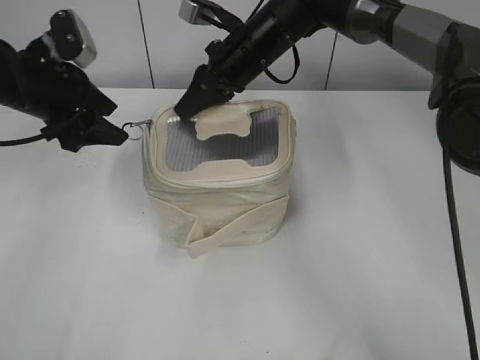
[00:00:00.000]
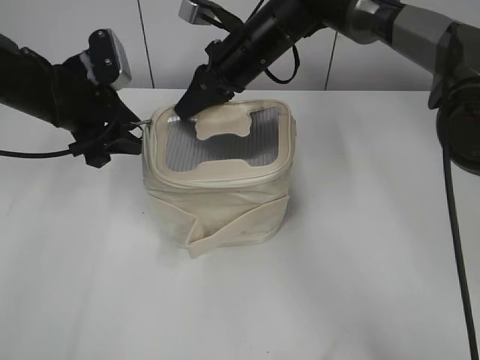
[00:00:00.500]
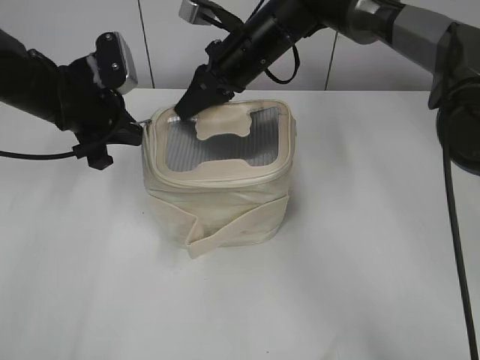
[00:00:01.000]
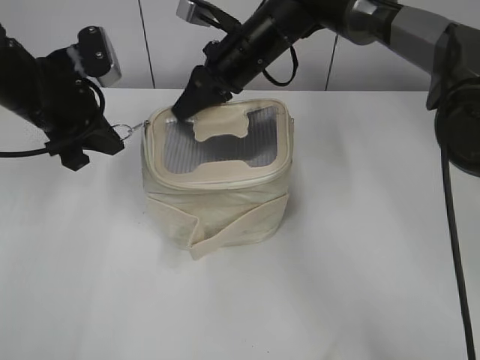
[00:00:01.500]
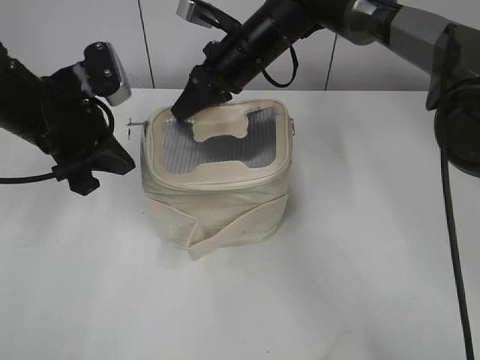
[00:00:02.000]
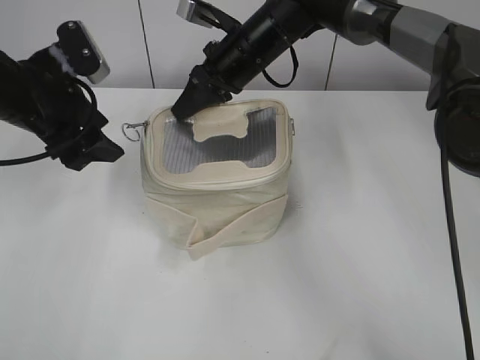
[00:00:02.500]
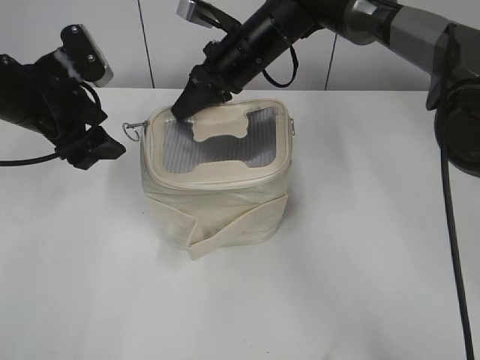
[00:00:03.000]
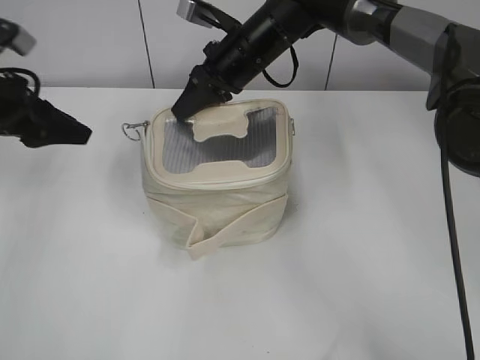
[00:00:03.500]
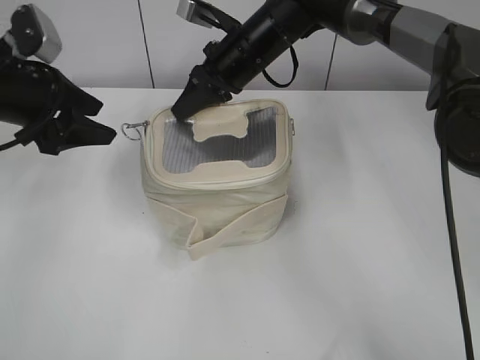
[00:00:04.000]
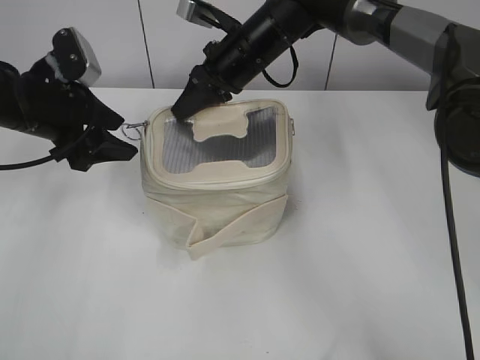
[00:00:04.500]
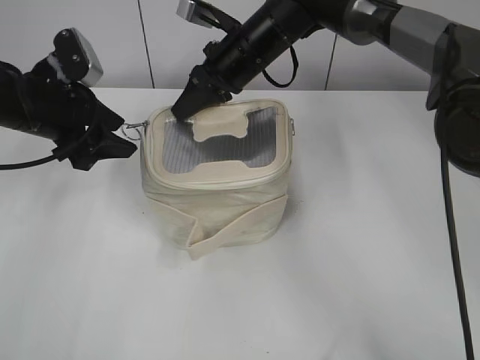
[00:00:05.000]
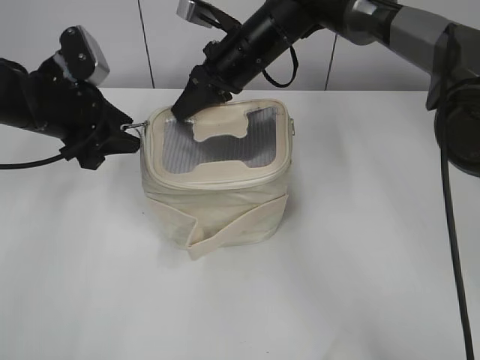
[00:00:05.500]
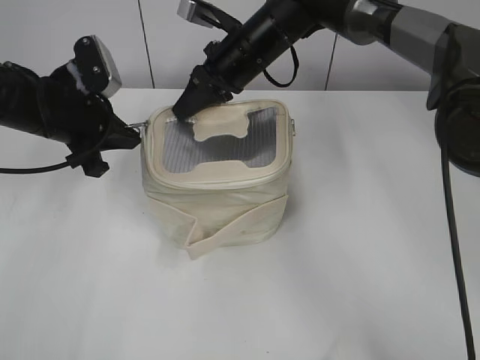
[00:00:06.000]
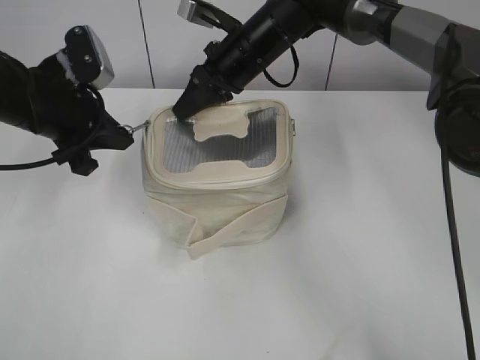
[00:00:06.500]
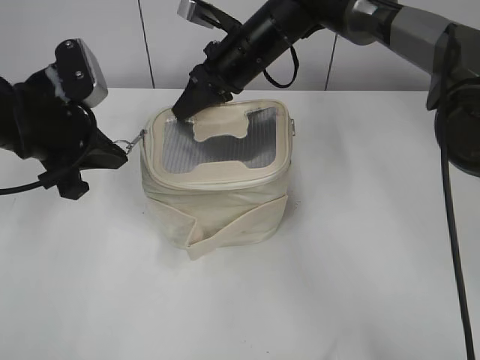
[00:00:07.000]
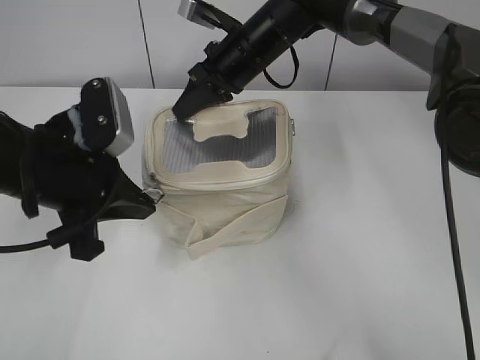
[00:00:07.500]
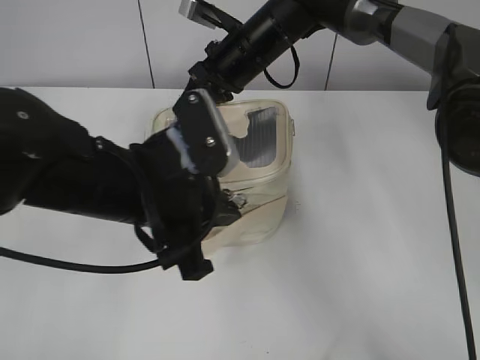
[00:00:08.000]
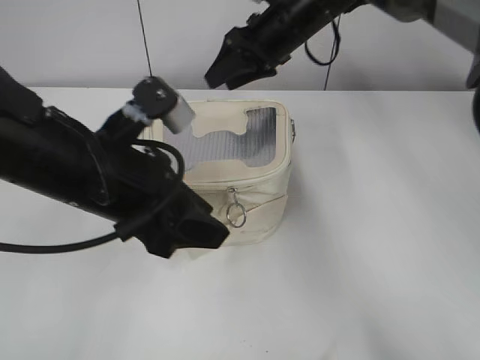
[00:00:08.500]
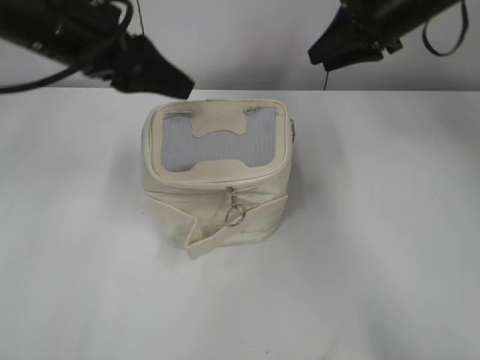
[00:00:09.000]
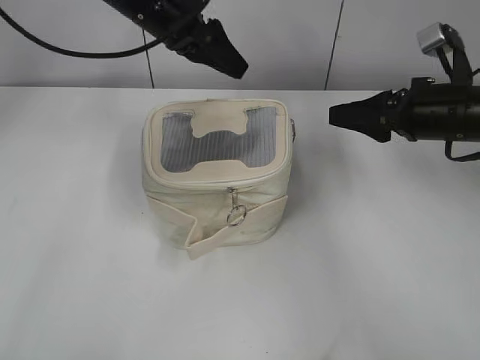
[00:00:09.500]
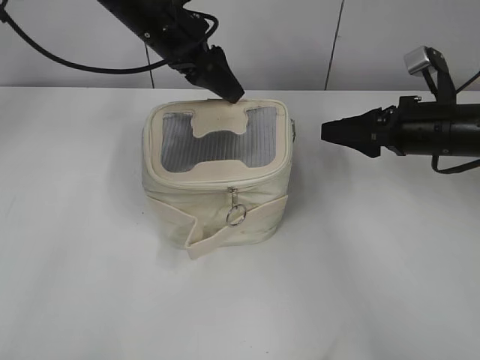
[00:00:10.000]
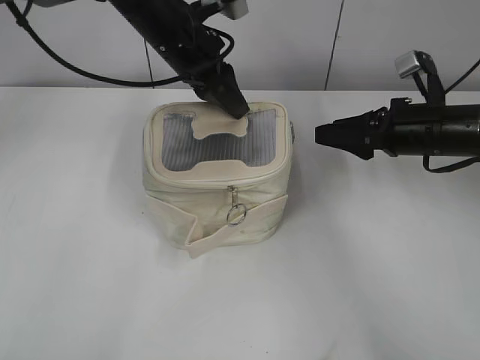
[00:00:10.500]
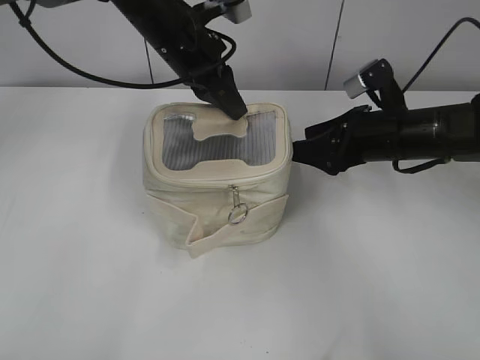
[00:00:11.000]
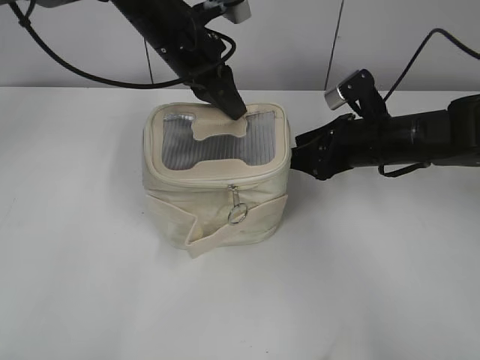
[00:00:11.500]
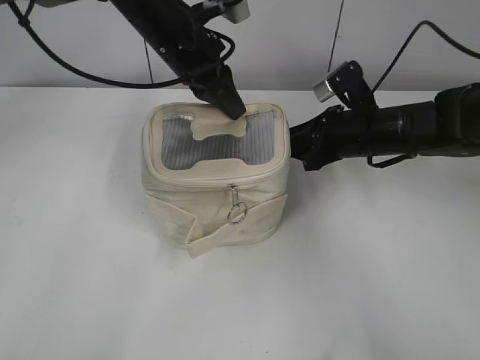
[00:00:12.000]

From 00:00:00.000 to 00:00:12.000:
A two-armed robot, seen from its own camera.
Step, from 00:00:00.000 to 00:00:08.000: Zip up the bag with your left hand.
From 00:00:00.000 to 00:00:02.000: The left gripper moves backward, roughly 5 cm, and closes.
From 00:00:02.000 to 00:00:04.000: The left gripper is displaced to the left by about 5 cm, and opens.
From 00:00:04.000 to 00:00:06.000: The left gripper shifts by about 5 cm, and closes.
From 00:00:06.000 to 00:00:08.000: The left gripper goes some 20 cm backward and to the right.
From 00:00:08.000 to 00:00:10.000: The left gripper moves forward, some 25 cm, and opens its fingers. Meanwhile the right gripper heads to the right and backward, covering some 25 cm, and opens up.
From 00:00:10.000 to 00:00:12.000: The left gripper closes, while the right gripper goes some 5 cm to the left, and closes up.

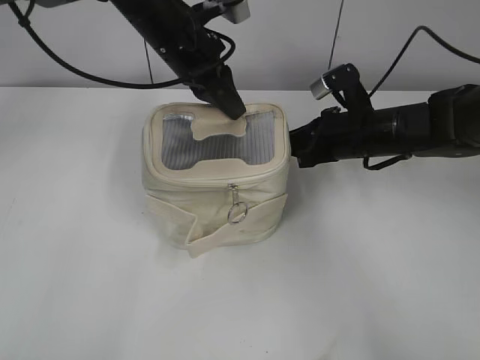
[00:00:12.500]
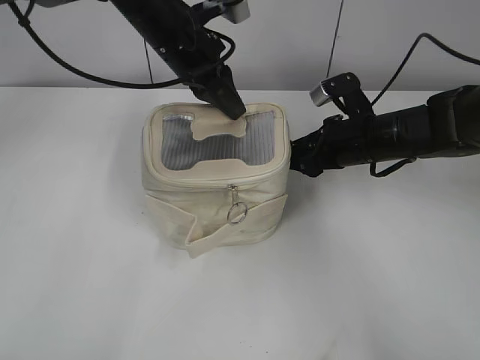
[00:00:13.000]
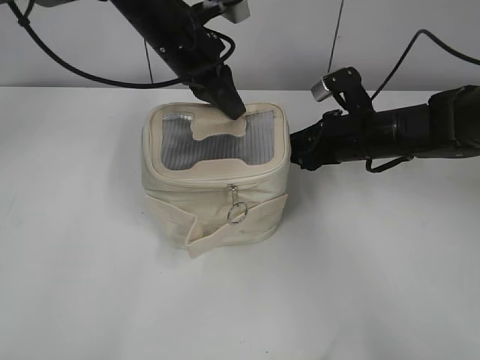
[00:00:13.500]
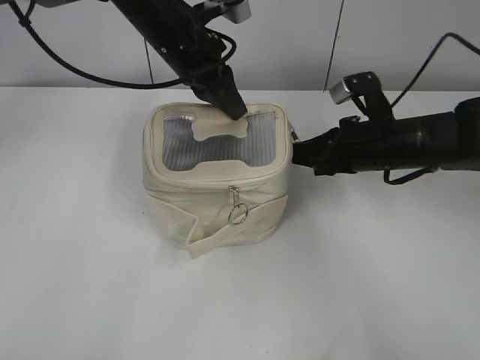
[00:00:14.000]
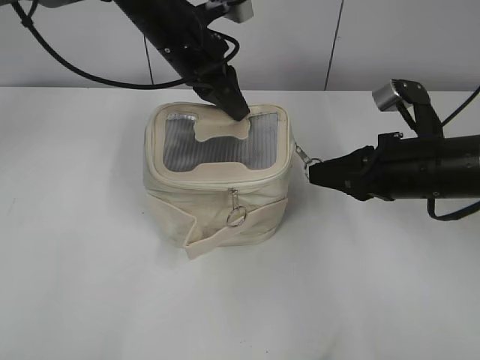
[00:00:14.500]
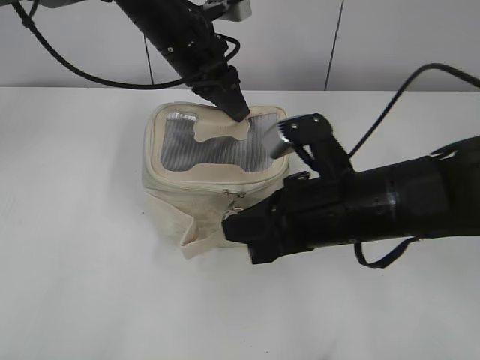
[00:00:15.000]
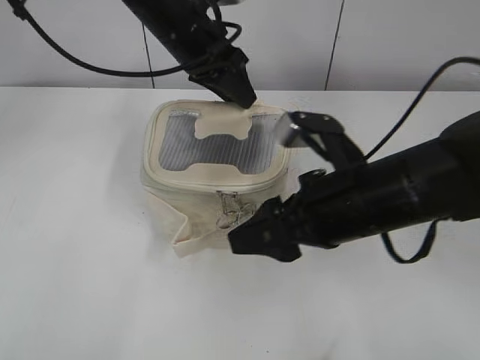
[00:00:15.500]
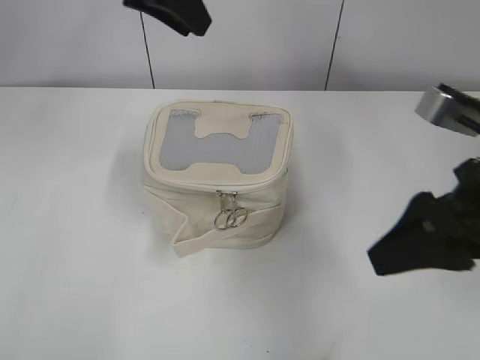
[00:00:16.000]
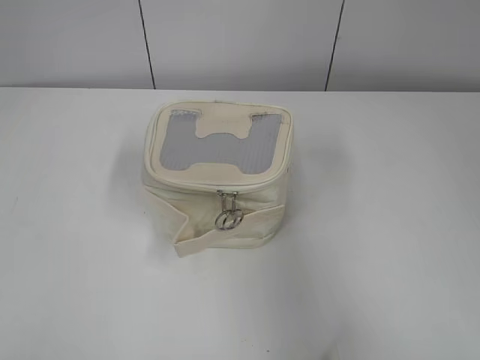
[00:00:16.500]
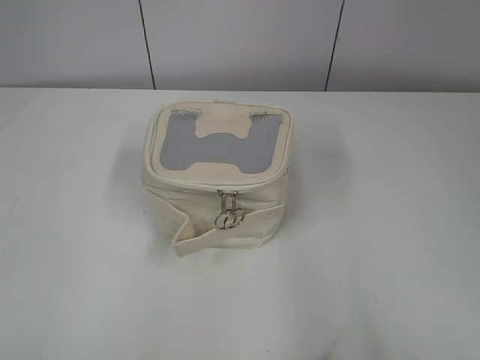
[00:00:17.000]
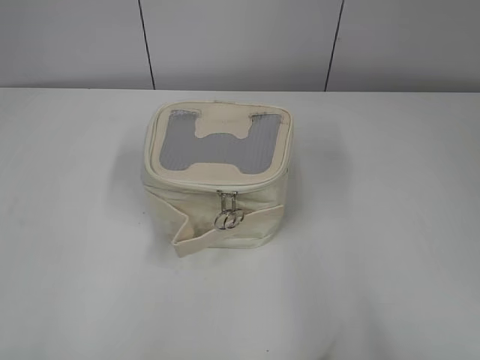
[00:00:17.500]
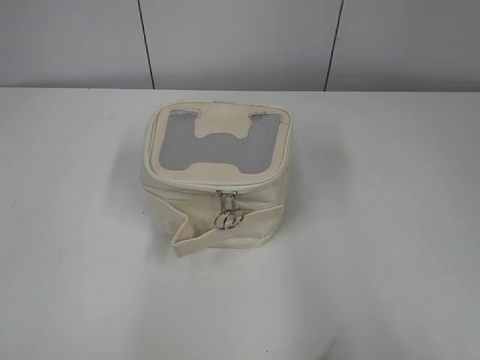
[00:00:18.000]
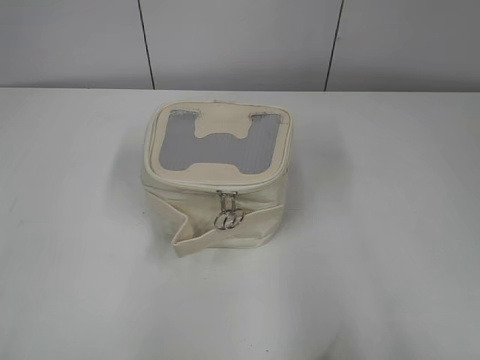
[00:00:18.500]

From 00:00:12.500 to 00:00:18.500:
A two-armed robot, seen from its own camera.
Step, from 00:00:12.500 to 00:00:15.000: Zip up the bag with your right hand.
From 00:00:12.500 to 00:00:14.500: The right gripper heads backward, covering about 10 cm, and opens, then closes once more.
From 00:00:14.500 to 00:00:16.500: The right gripper travels backward and upward by roughly 25 cm, and opens up, while the left gripper travels backward, to the left and upward by roughly 40 cm, and opens.
From 00:00:16.500 to 00:00:18.500: The right gripper moves backward, roughly 5 cm; the left gripper is displaced backward, downward and to the left by roughly 15 cm.

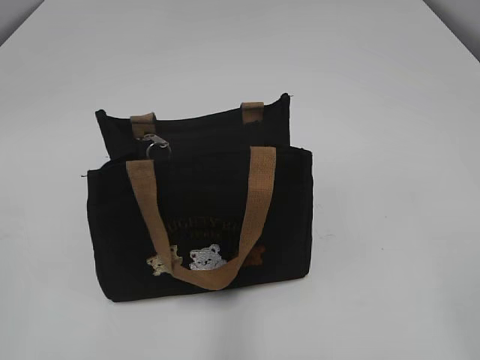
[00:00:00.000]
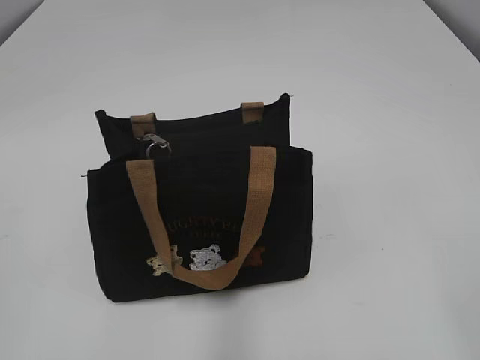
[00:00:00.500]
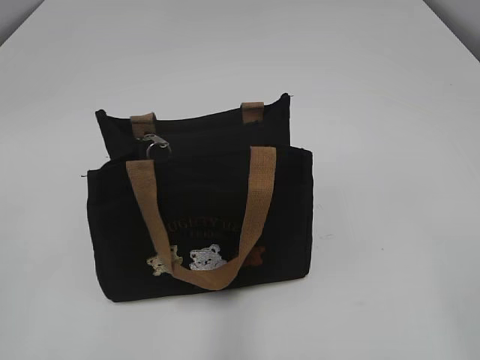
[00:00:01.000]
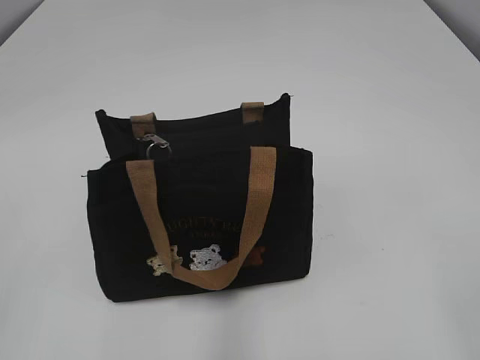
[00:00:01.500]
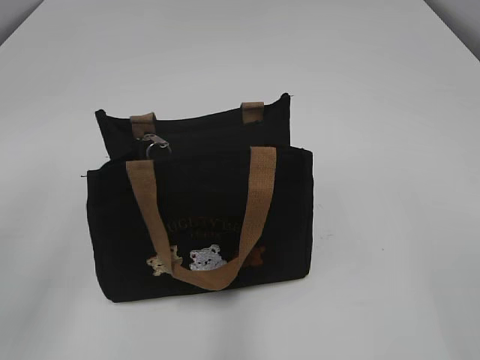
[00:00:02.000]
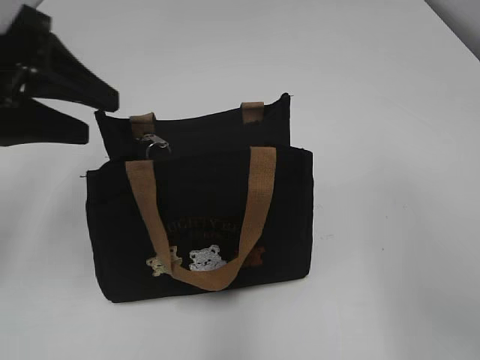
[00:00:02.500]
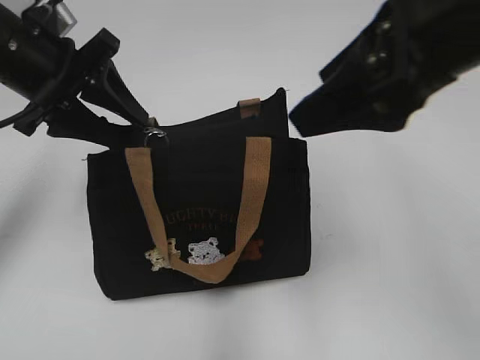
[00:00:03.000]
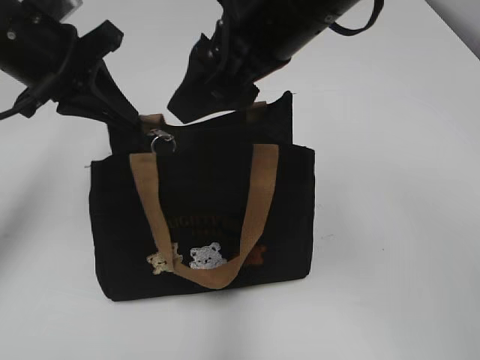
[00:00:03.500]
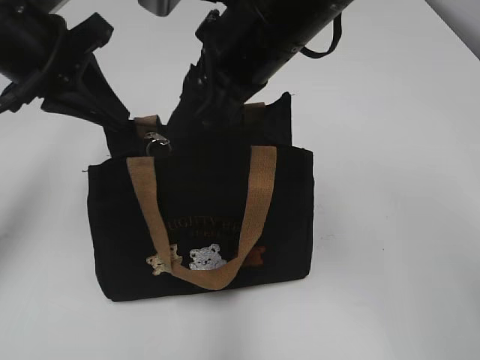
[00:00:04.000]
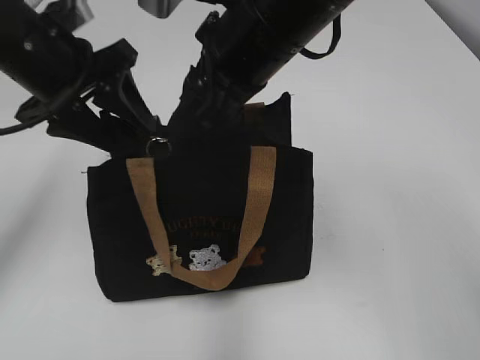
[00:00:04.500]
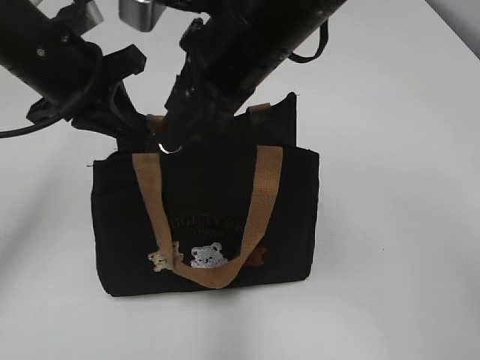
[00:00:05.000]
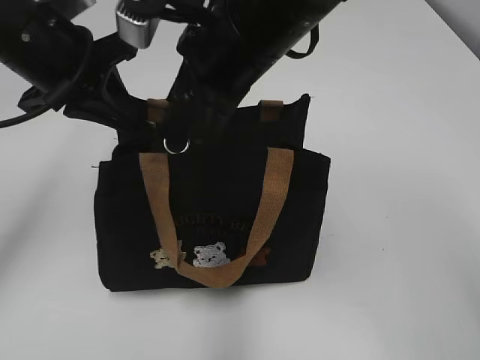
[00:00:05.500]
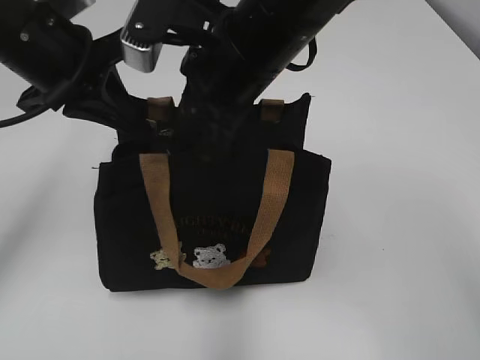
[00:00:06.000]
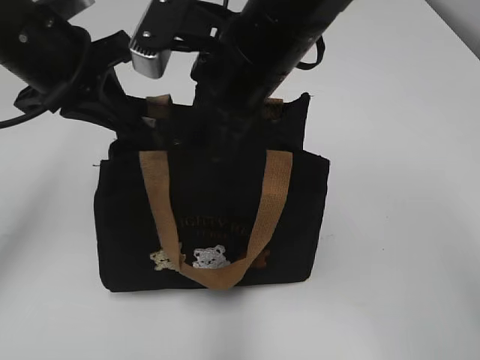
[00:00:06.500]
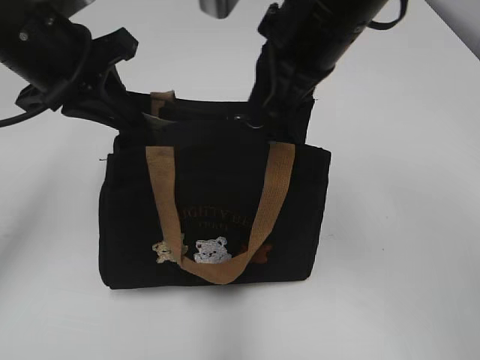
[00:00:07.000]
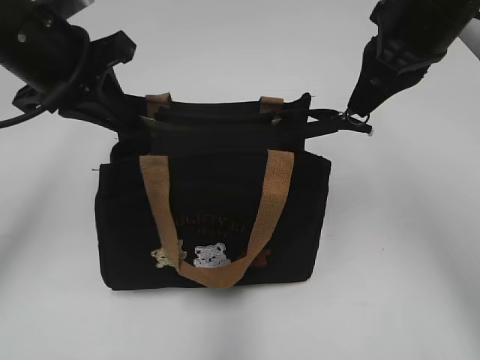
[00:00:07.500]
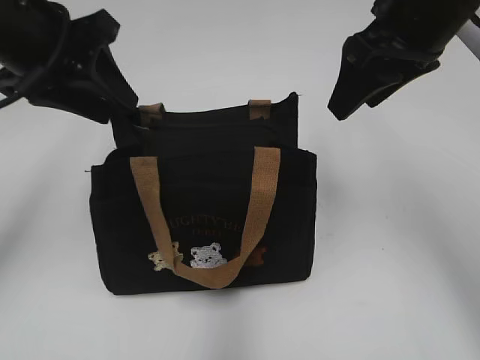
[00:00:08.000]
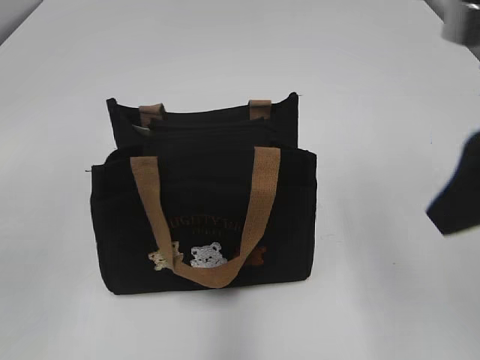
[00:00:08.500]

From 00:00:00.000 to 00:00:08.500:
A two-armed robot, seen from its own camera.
Step, from 00:00:00.000 to 00:00:07.500: Pull open the zipper with your right hand.
From 00:00:02.000 to 00:00:04.000: The left gripper heads forward, covering some 20 cm, and closes; the right gripper moves forward and to the left, about 40 cm.
From 00:00:04.000 to 00:00:06.500: The left gripper opens, then closes again, while the right gripper closes.
From 00:00:06.500 to 00:00:08.500: The right gripper moves to the right and backward, some 20 cm, and opens. Meanwhile the left gripper goes some 20 cm backward, upward and to the left, and opens up.
